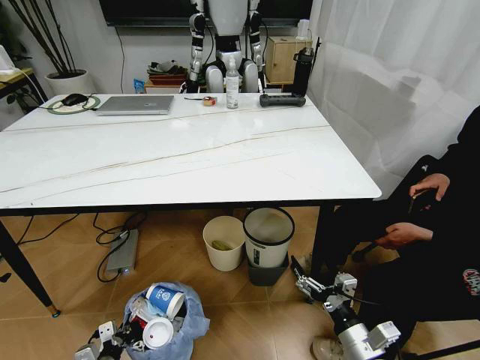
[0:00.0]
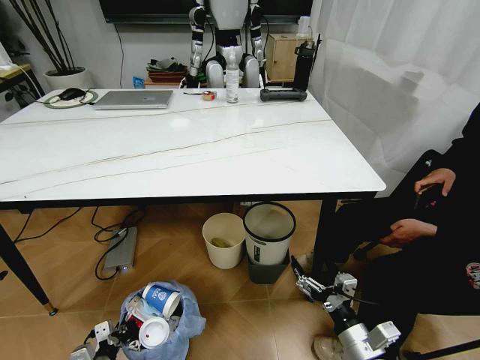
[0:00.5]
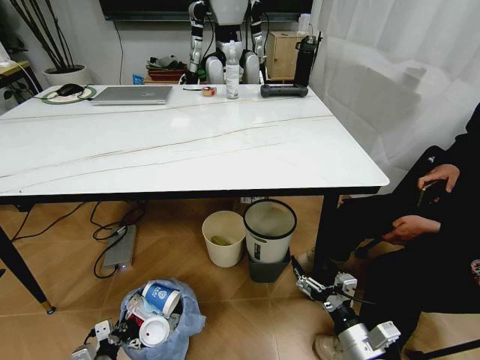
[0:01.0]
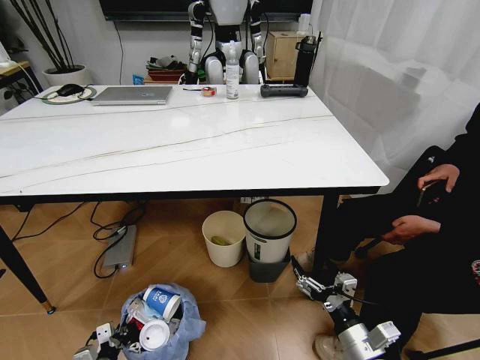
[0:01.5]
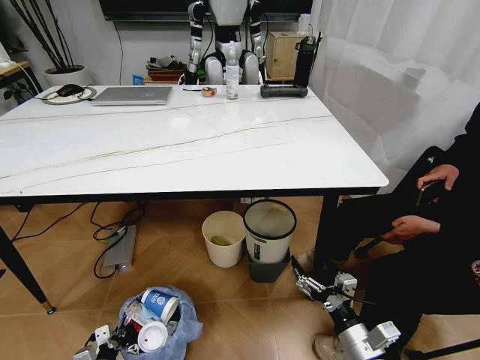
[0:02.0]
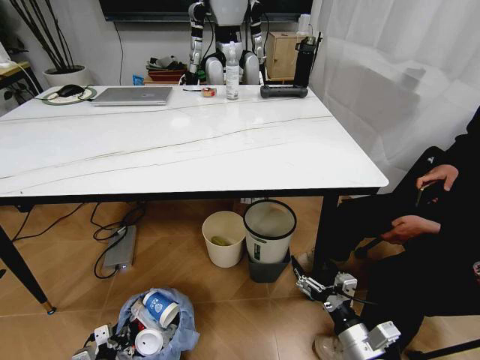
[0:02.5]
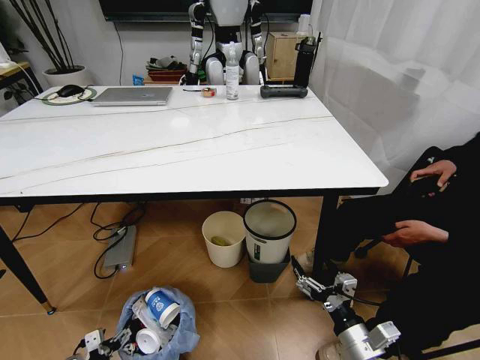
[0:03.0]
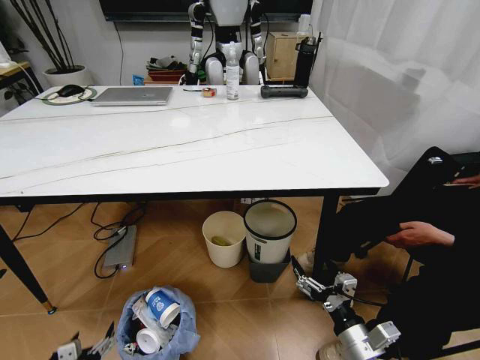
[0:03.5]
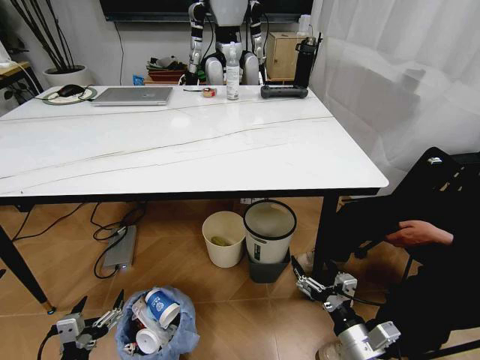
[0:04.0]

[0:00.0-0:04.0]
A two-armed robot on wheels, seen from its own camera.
Task of the whole recording: Pick up the trash bin and place the trash from the table into it.
0:02.0 to 0:04.0: The left gripper moves upward, roughly 20 cm, and opens.

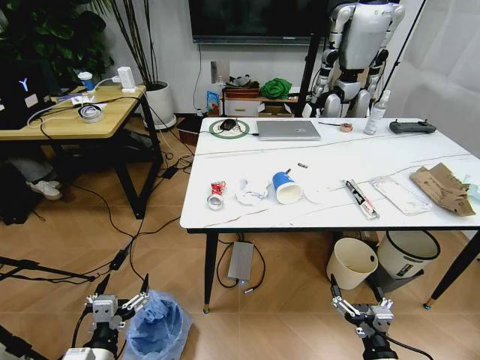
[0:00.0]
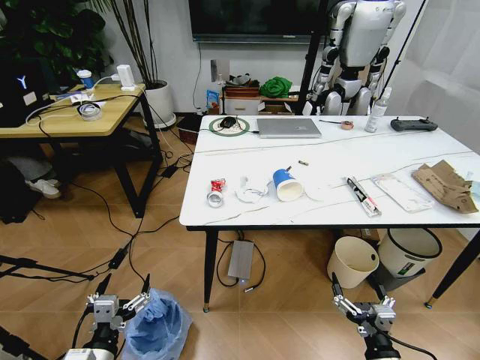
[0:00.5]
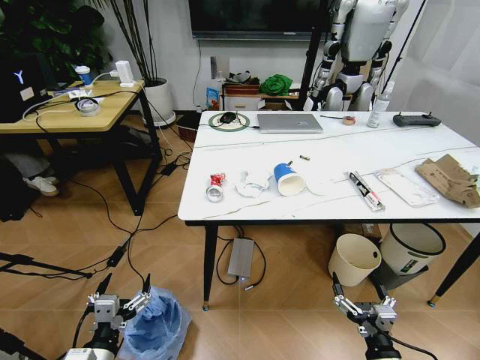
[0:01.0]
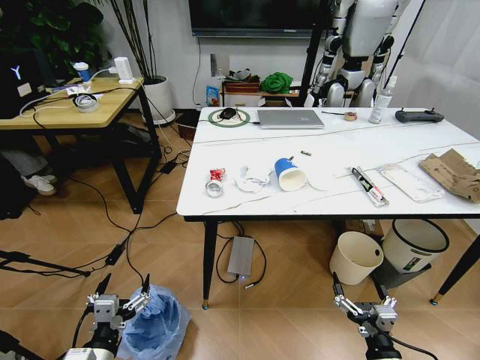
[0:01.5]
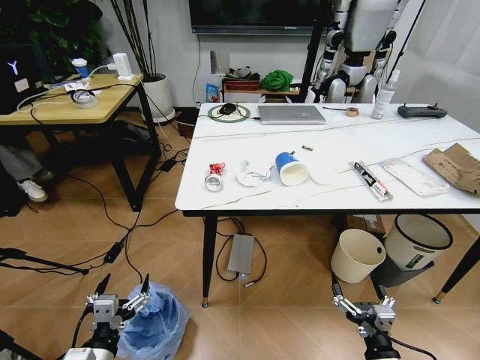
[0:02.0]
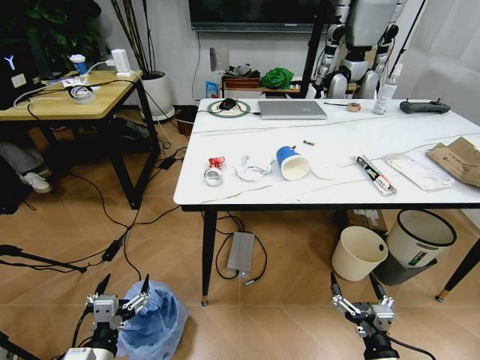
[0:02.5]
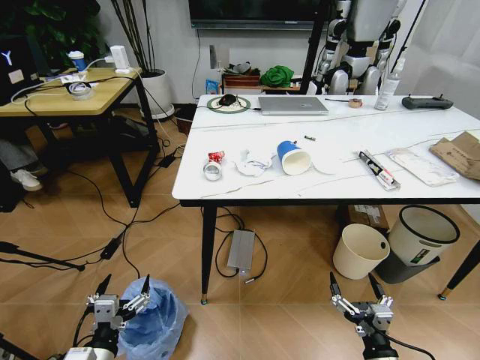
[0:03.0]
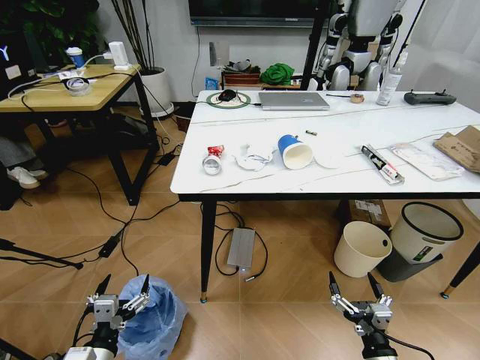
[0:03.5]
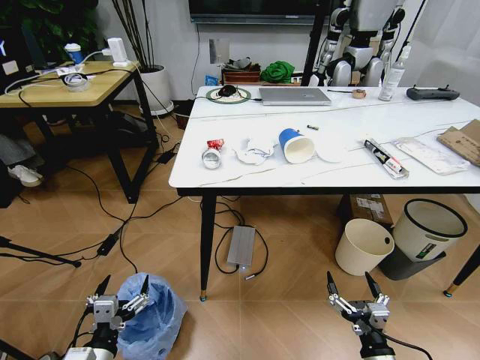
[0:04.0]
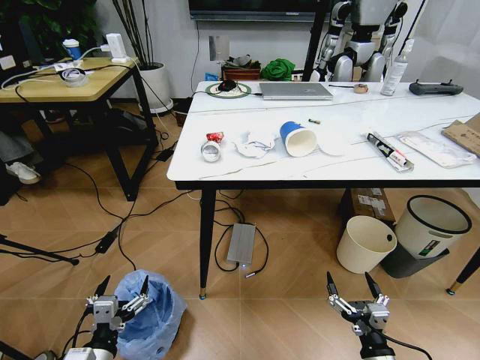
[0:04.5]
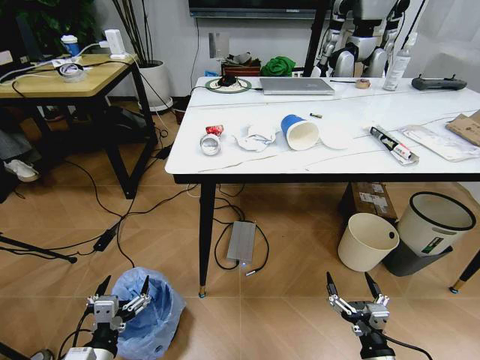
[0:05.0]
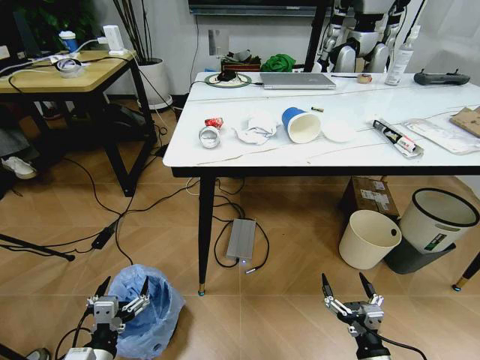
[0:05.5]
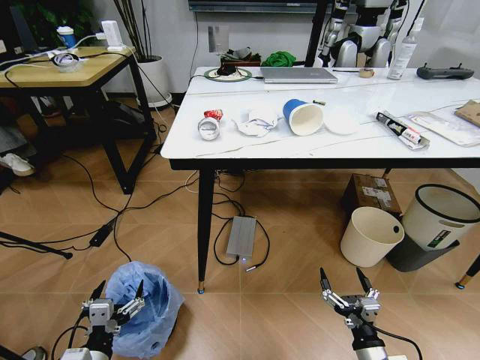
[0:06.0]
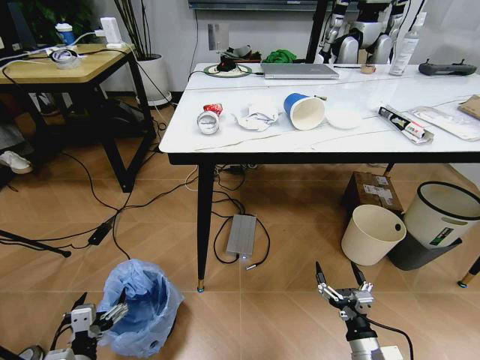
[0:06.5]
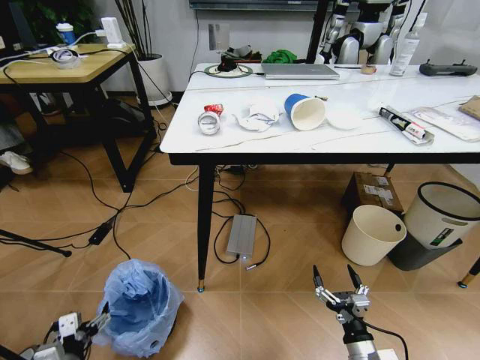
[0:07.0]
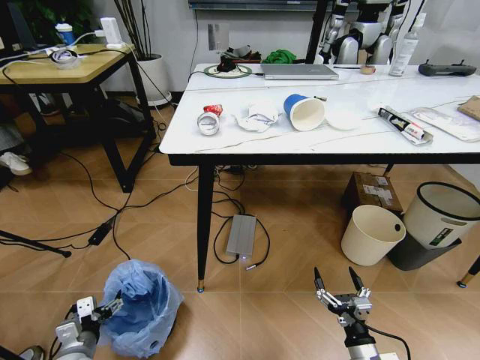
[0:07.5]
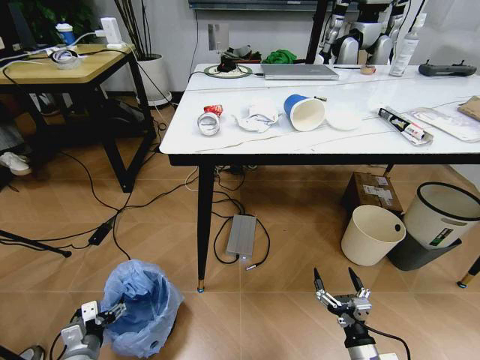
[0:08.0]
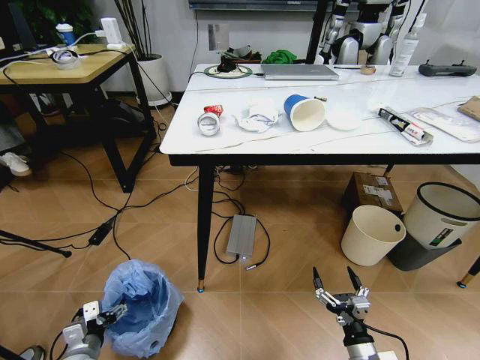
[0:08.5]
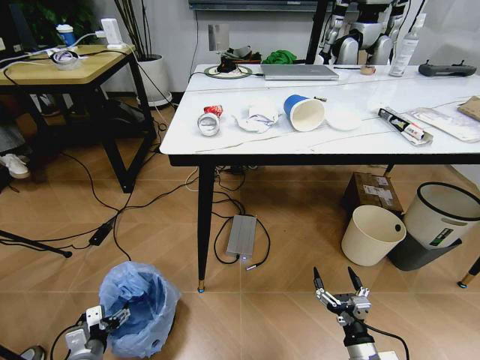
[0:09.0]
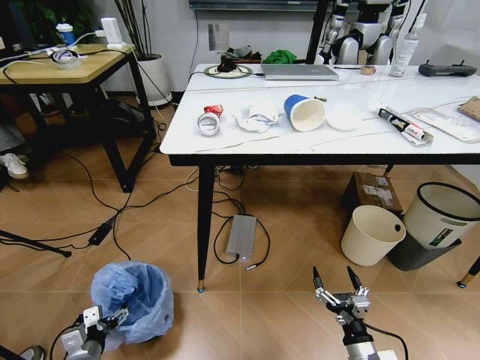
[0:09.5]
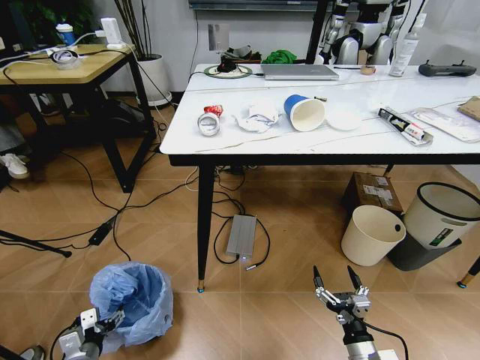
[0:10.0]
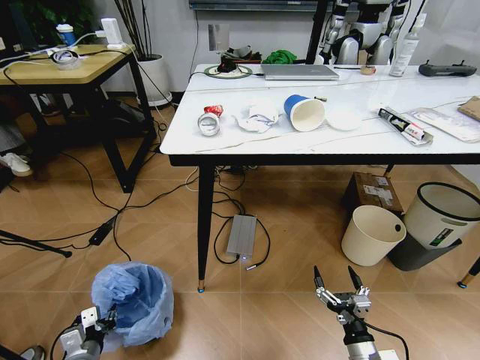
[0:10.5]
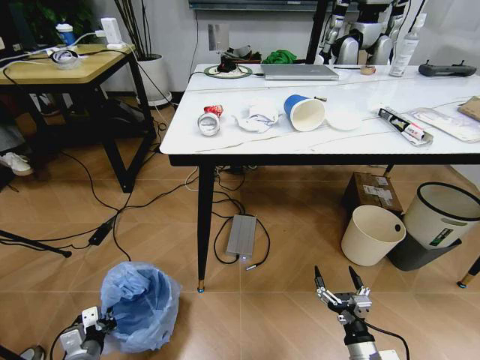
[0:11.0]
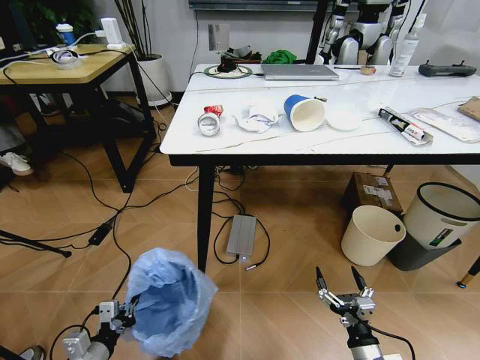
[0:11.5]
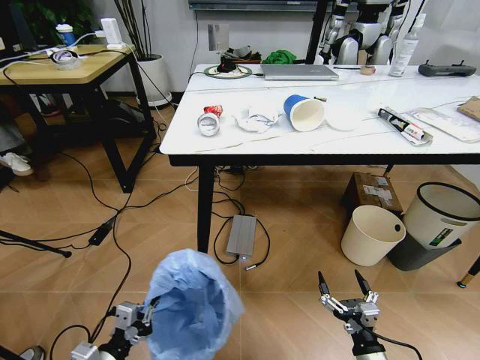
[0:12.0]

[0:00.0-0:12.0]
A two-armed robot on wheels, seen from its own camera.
Task of the whole recording: Pick up the trash bin and place the trash from the table into it.
0:06.0 to 0:08.0: The left gripper moves downward, to the left and forward, some 15 cm.
0:08.0 to 0:10.0: The two grippers keep their place.
0:10.0 to 0:12.0: The left gripper shifts some 15 cm upward, to the right and backward, and closes up.

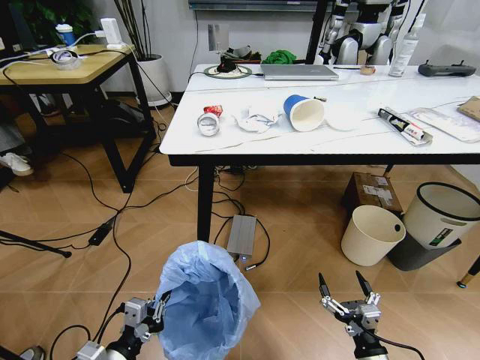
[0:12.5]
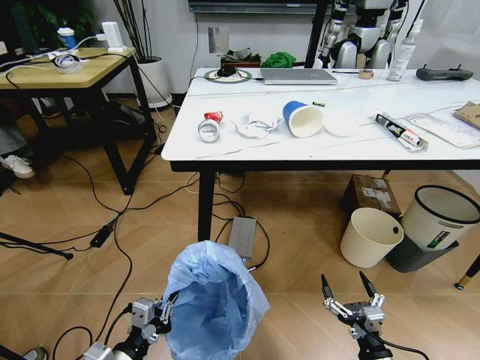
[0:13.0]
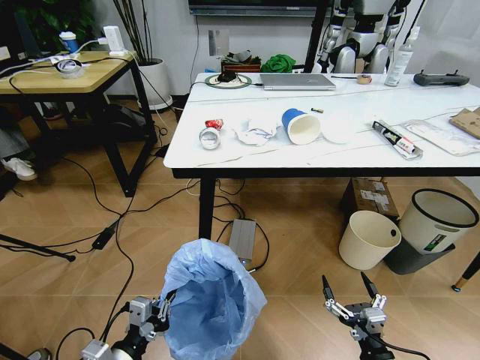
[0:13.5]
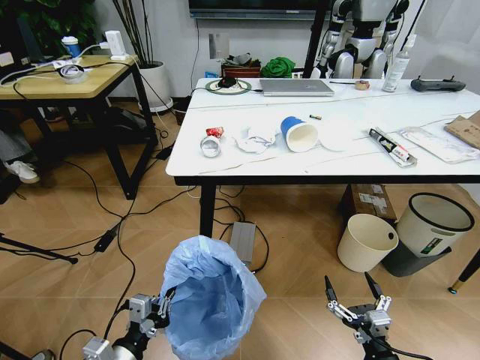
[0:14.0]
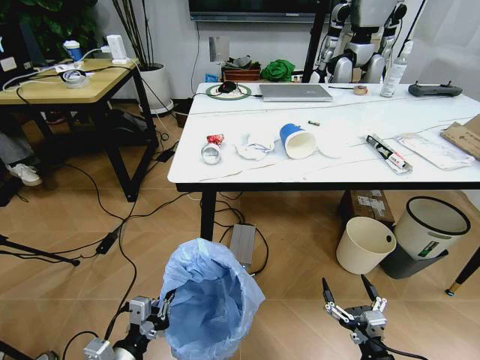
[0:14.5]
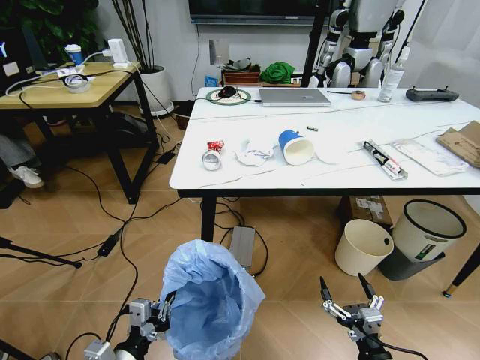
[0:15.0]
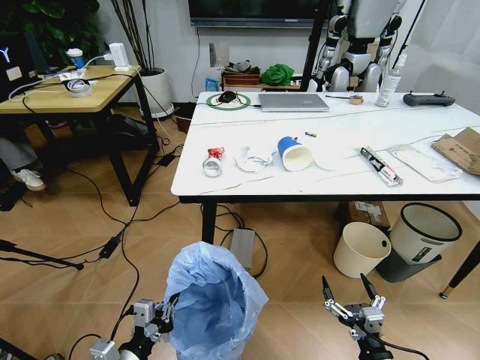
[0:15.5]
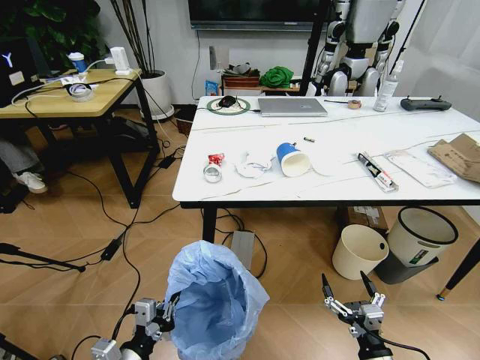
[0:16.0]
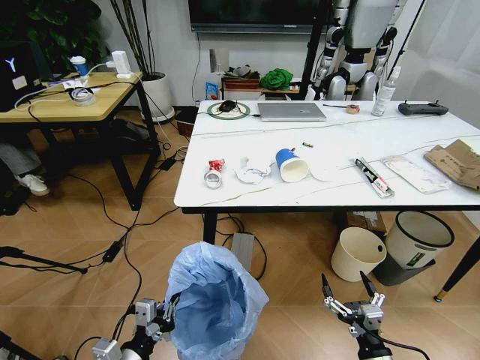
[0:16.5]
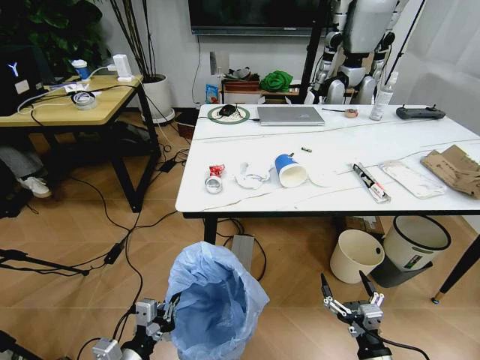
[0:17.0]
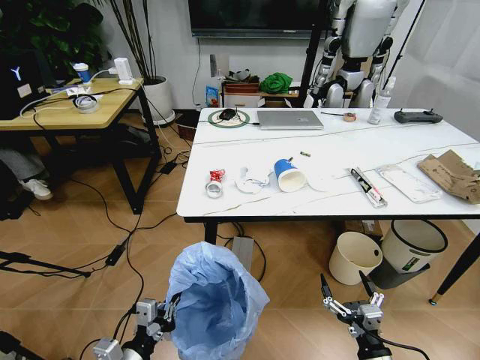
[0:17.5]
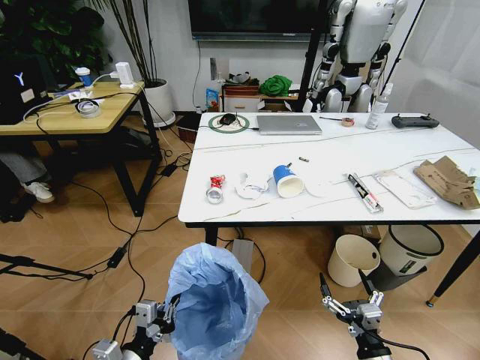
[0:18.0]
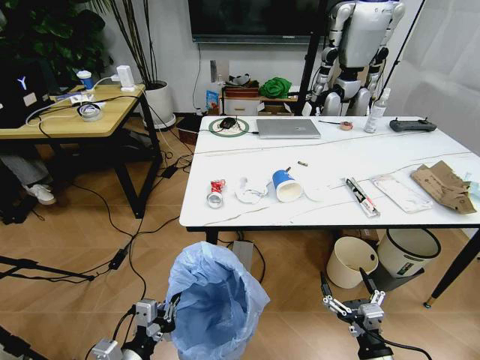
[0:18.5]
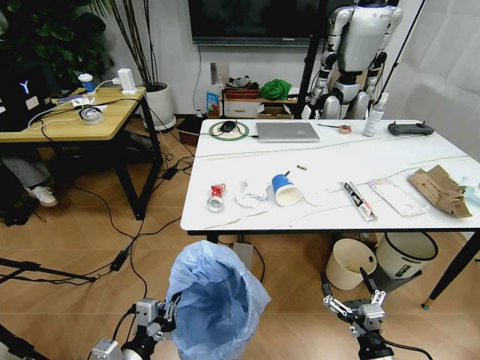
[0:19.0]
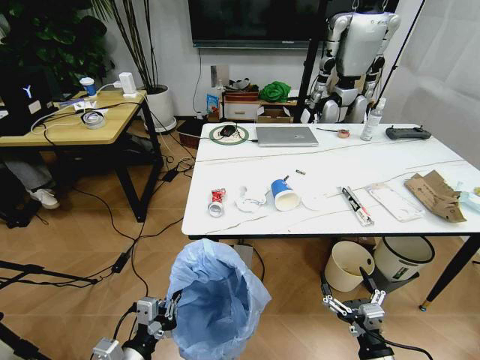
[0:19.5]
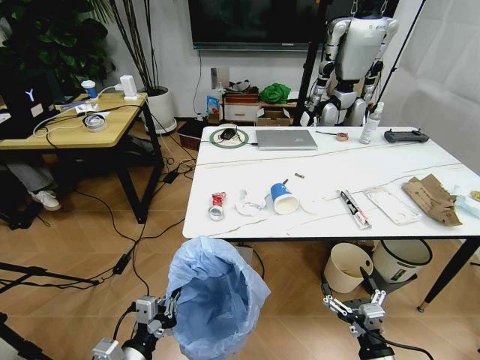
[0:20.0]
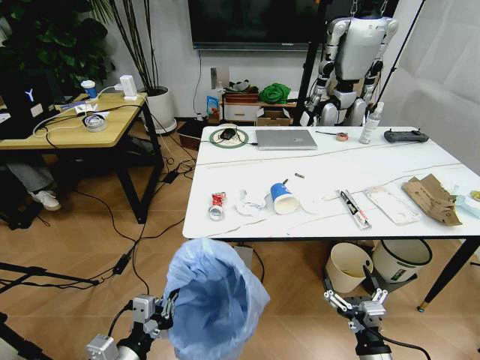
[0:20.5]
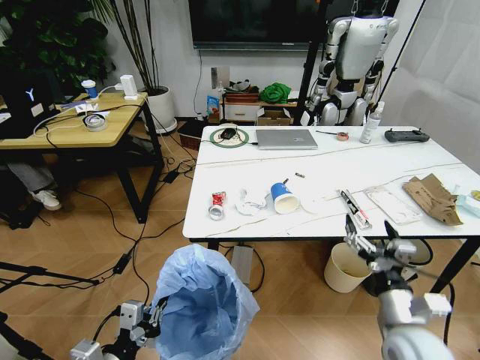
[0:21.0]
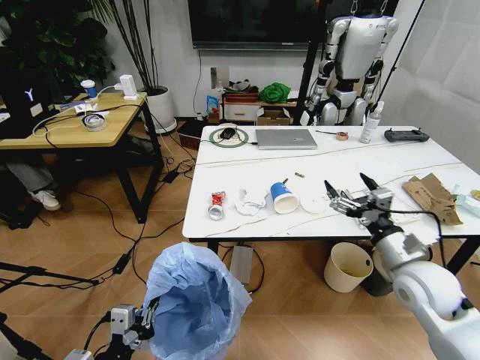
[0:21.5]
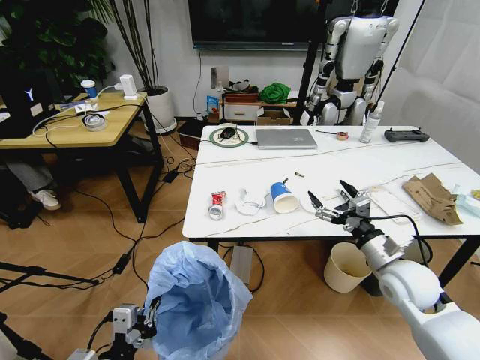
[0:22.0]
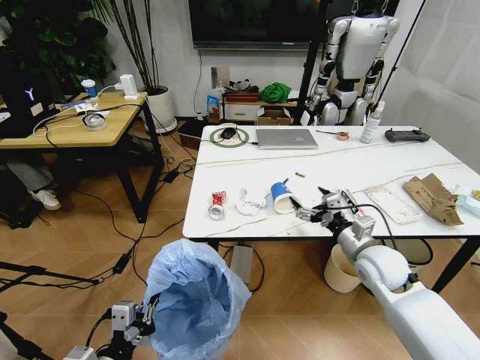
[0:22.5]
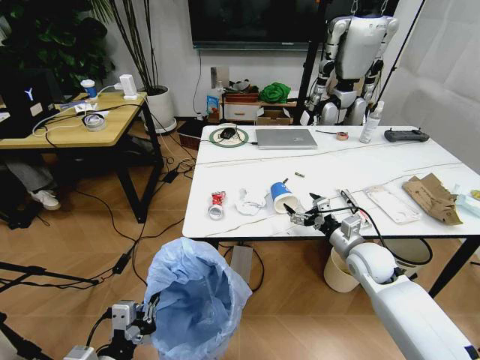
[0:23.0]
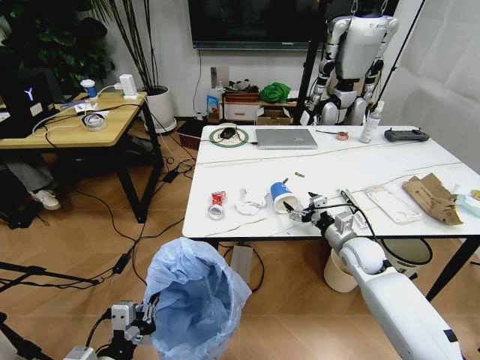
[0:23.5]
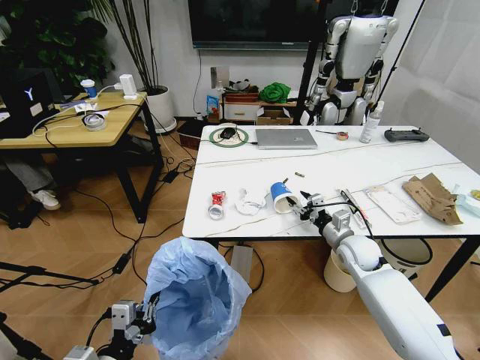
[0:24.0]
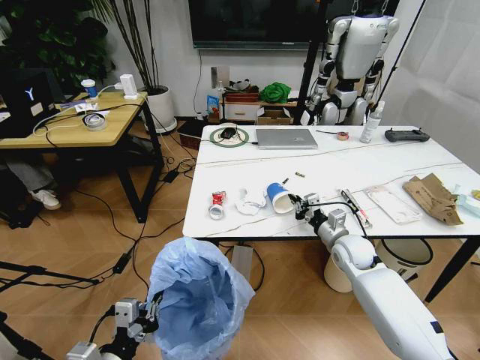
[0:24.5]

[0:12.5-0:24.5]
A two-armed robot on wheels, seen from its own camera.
Task of the whole recording: Pick up the trash bin and place the trash from the table into it.
0:20.5 to 0:22.5: The right gripper goes roughly 25 cm forward and upward.
0:22.5 to 0:24.5: The right gripper goes approximately 10 cm forward and downward, and closes up.
